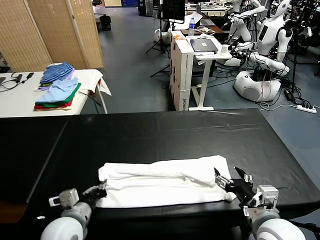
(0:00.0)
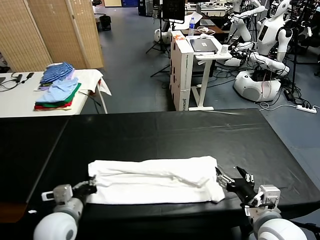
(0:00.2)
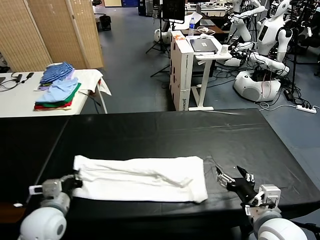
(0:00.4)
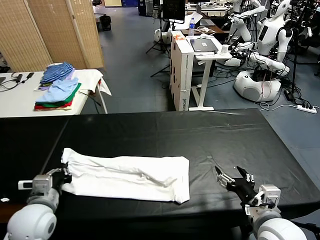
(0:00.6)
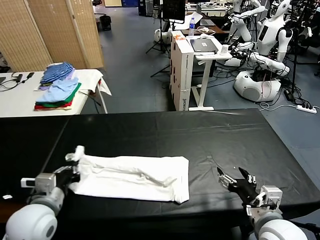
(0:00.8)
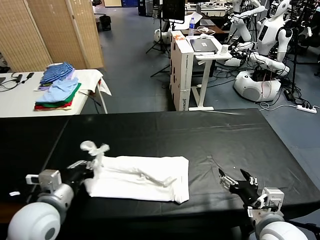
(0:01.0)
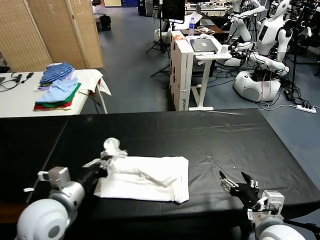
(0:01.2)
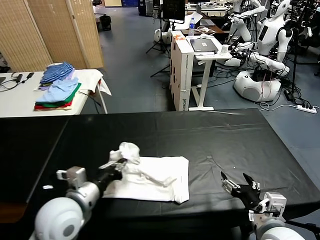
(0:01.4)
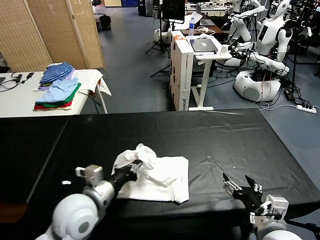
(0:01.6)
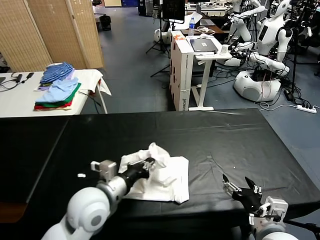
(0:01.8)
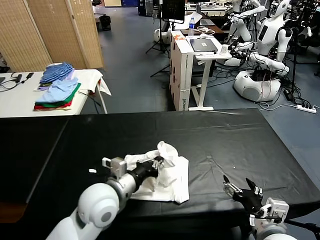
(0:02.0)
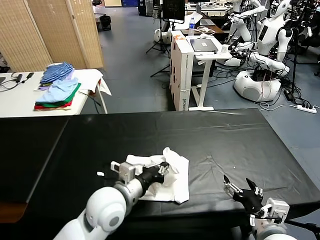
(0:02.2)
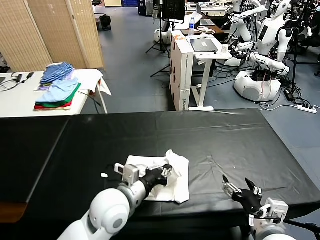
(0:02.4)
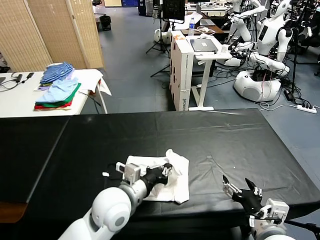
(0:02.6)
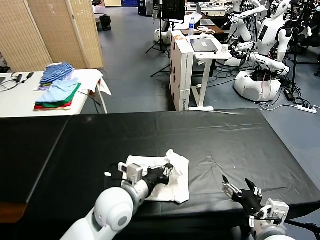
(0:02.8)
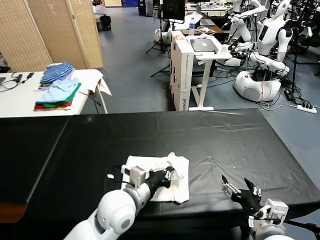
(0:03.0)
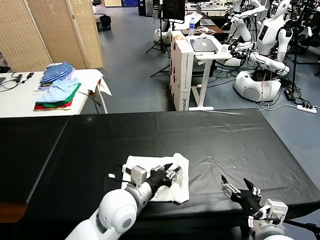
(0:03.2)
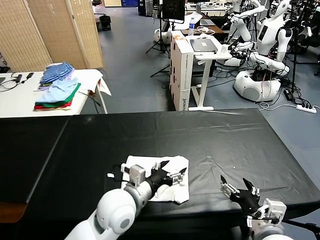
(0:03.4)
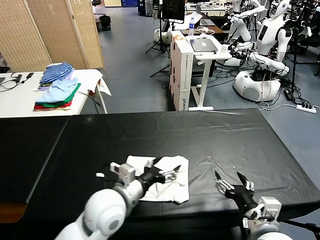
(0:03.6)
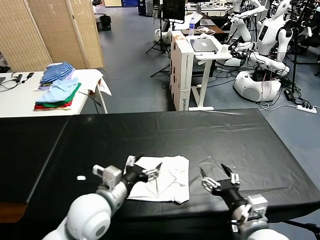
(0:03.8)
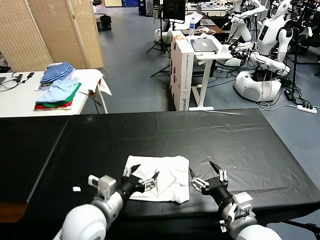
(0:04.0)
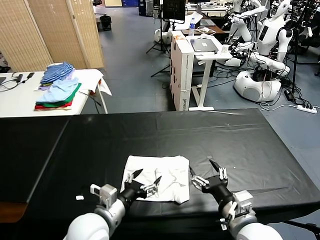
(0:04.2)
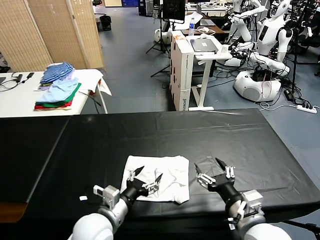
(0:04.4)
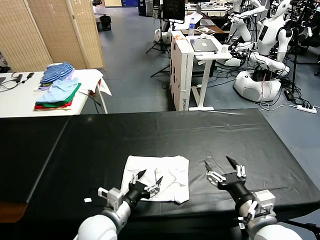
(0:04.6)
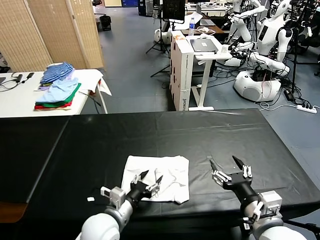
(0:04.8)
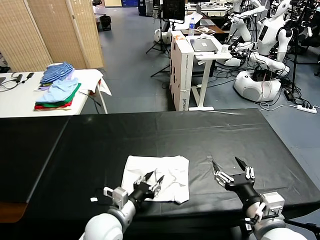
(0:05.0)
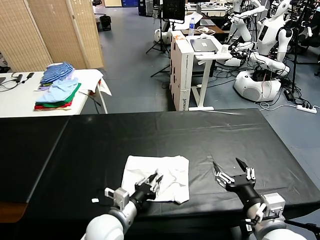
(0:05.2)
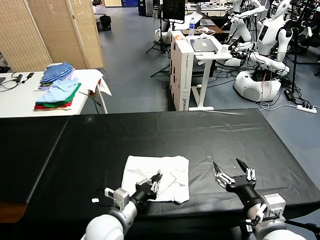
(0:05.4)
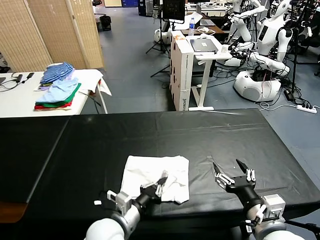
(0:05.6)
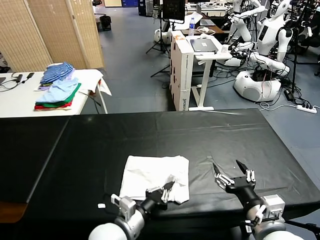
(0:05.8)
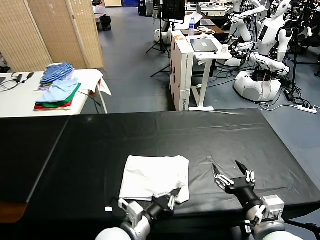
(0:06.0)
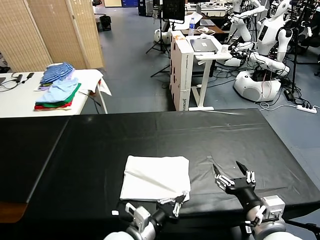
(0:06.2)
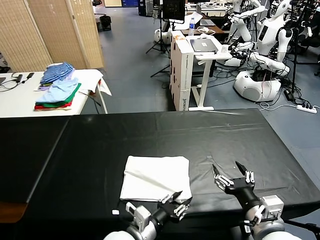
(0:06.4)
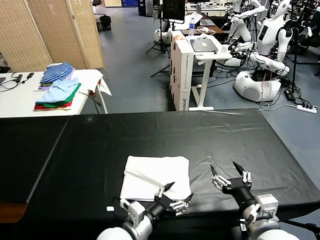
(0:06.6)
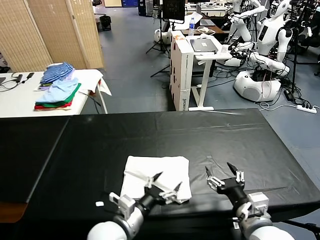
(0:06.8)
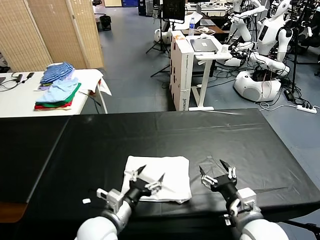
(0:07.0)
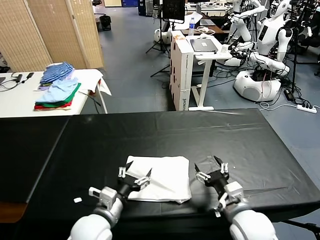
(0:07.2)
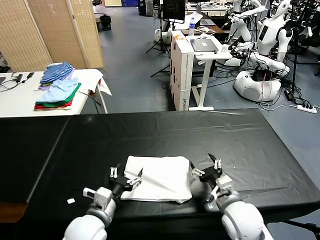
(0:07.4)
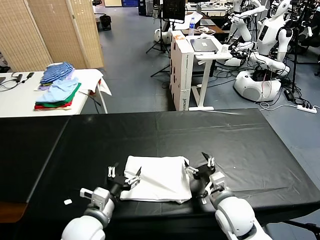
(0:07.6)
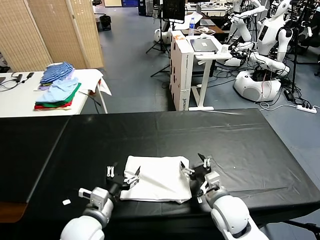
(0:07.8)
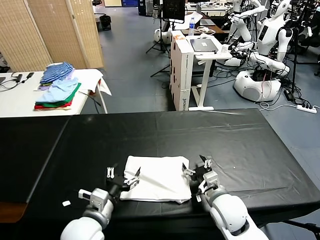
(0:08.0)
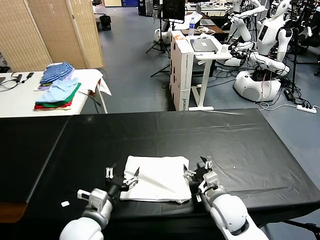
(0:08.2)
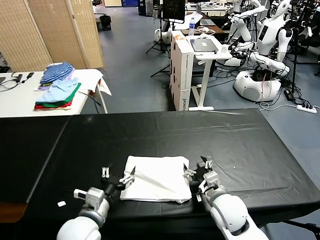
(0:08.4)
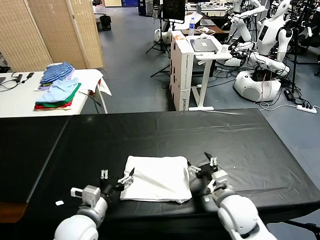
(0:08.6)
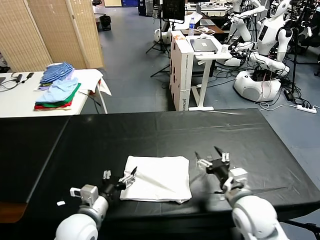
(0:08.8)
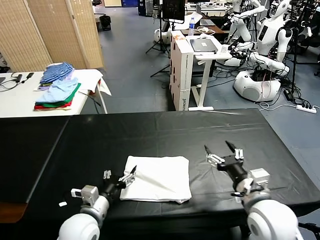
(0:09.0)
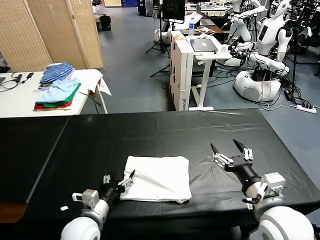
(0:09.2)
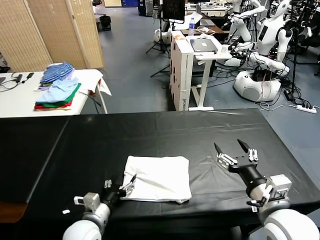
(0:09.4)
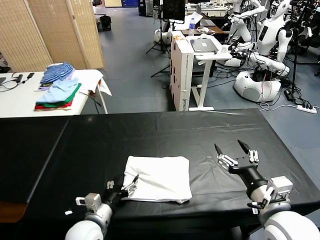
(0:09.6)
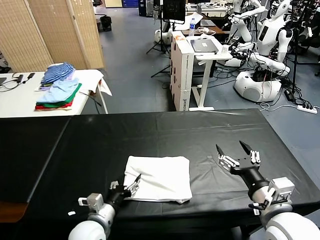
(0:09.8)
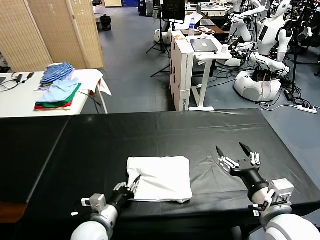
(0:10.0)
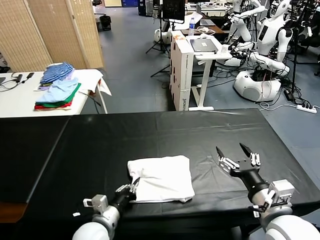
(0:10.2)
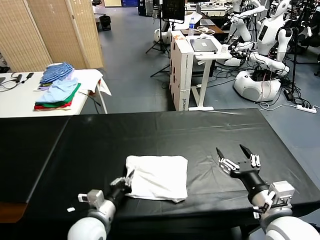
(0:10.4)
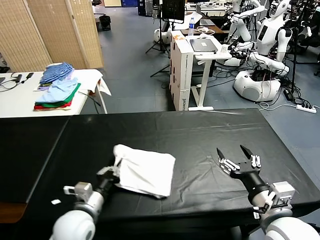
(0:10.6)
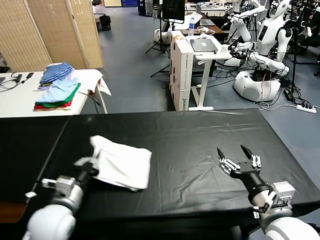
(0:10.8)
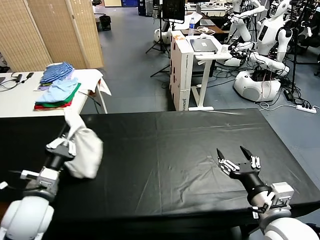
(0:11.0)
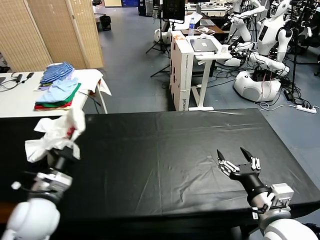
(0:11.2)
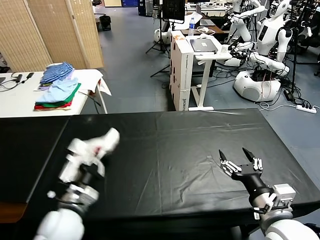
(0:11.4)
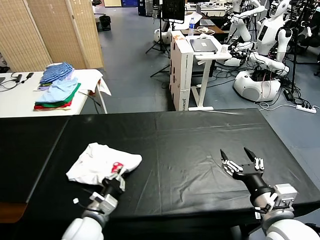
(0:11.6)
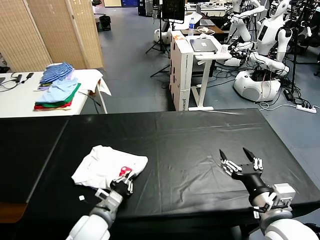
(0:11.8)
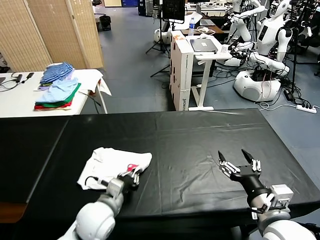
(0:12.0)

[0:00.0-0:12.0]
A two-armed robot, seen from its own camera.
Task of the whole recording: fold and organize the clothes.
Step, 0:00.4 to 0:03.2: use the left gripper to drag the left edge of the fabric to the left and folds it over the right edge.
0:00.0 to 0:01.6: The left gripper travels upward and to the right by roughly 10 cm.
0:01.6 to 0:03.0: The left gripper shifts roughly 10 cm to the right.
0:03.0 to 0:04.4: The left gripper moves to the left and backward, about 10 cm, and opens up.
0:04.4 to 0:06.0: The left gripper is displaced to the right by about 5 cm, and closes its fingers.
0:06.0 to 0:07.6: The left gripper shifts roughly 10 cm to the left, and opens. Meanwhile the right gripper goes roughly 15 cm forward, downward and to the left.
0:07.6 to 0:09.0: The right gripper shifts some 10 cm upward and to the right.
0:09.0 to 0:10.4: The left gripper closes.
0:10.4 to 0:12.0: The left gripper goes to the left and returns, about 10 cm each way.

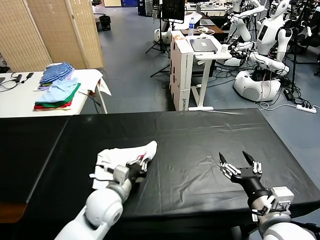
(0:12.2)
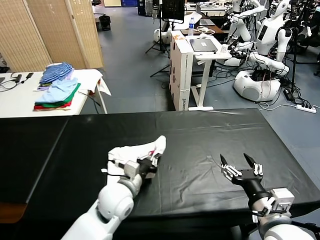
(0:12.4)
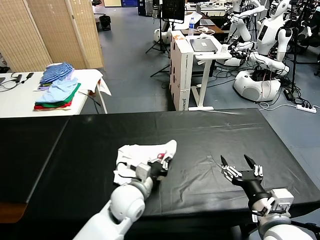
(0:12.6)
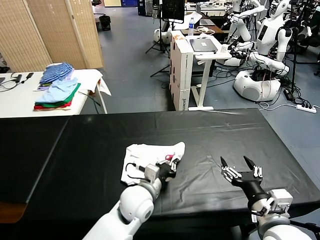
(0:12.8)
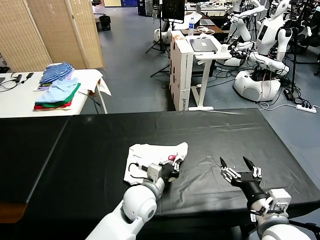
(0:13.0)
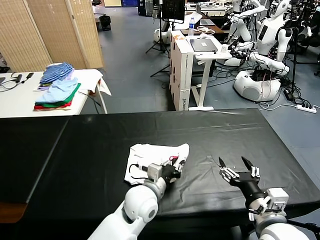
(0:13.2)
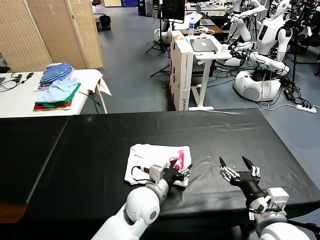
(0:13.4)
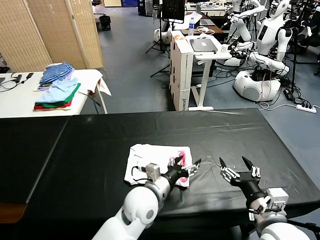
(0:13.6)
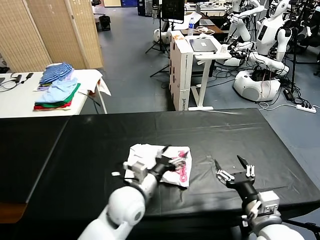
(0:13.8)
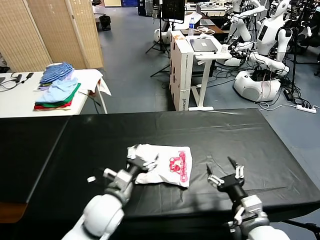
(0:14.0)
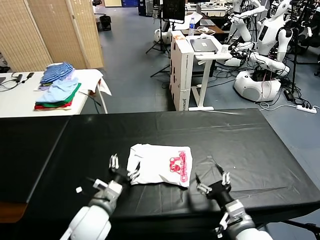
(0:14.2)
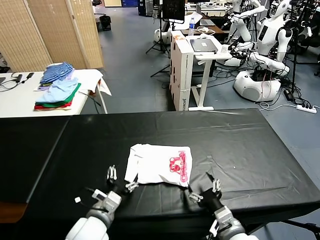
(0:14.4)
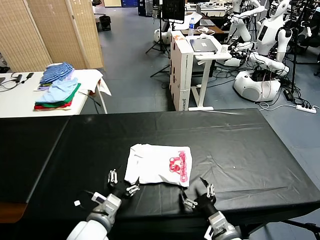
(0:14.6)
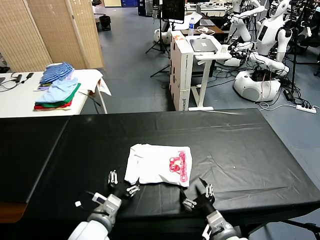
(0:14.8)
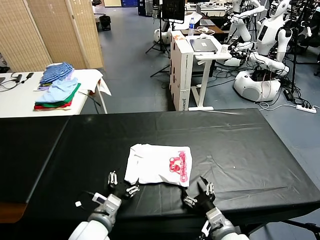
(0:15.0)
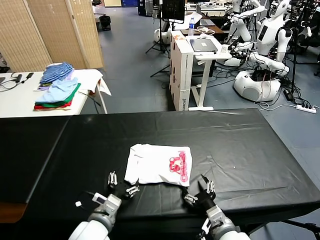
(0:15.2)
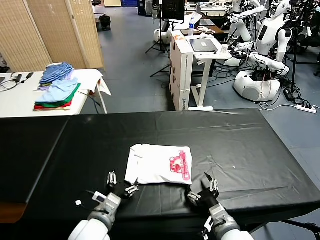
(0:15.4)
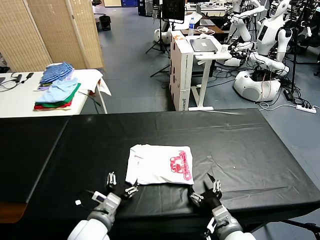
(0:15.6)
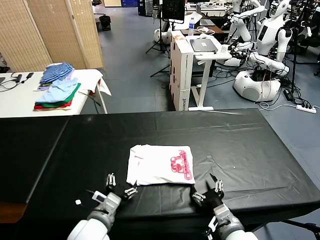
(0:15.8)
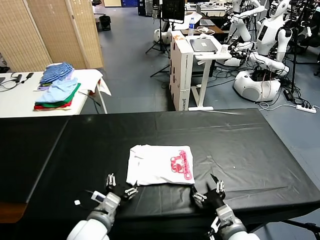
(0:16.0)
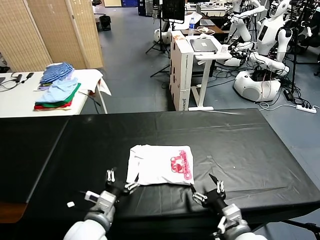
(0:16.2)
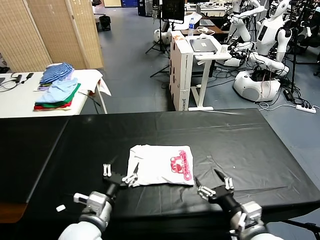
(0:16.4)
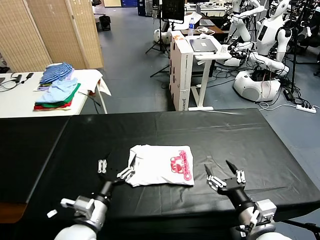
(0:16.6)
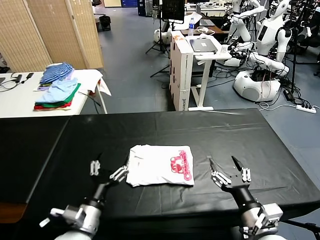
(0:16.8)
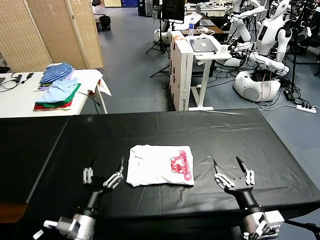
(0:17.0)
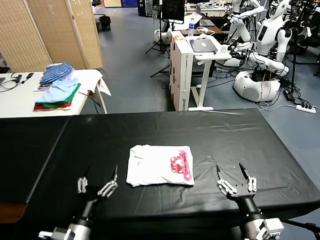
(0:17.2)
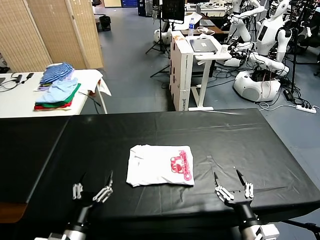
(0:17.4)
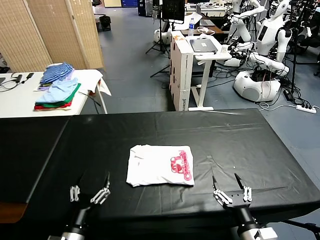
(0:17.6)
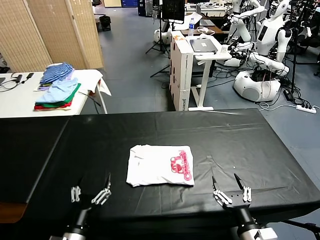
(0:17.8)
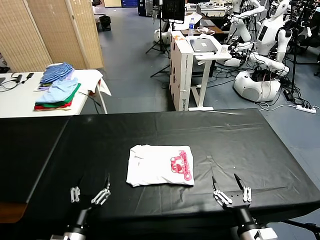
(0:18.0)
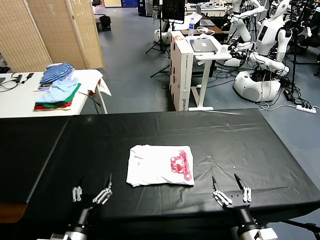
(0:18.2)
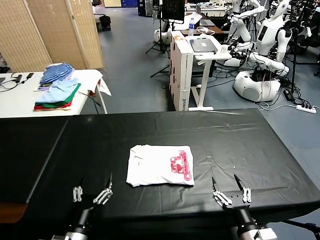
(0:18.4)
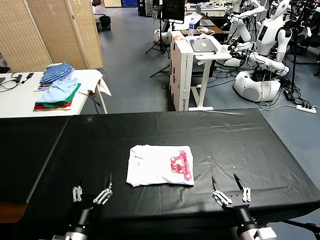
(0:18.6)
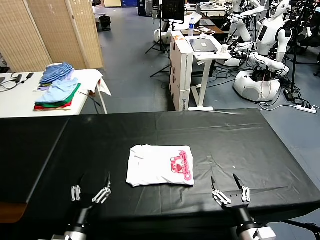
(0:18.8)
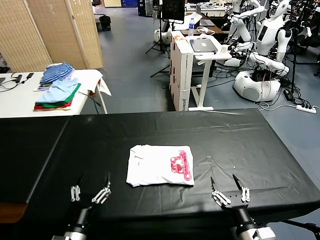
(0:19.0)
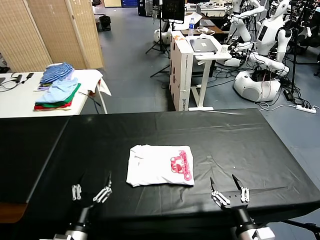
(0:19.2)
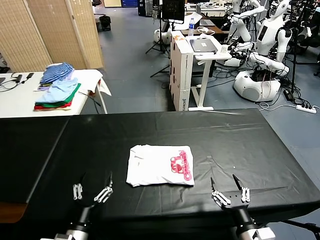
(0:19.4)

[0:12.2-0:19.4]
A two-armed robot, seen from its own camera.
Task of the whole recording: fold and organize the clothes.
Step, 0:13.6 to 0:16.2: Drag the clothes to the center of the table.
0:12.2 to 0:13.6: The left gripper travels to the right by some 10 cm, and opens.
0:13.6 to 0:15.0: The right gripper shifts some 15 cm downward and to the left, while the left gripper travels to the left and backward by approximately 15 cm.
0:15.0 to 0:16.6: The right gripper shifts approximately 10 cm upward and to the right.
0:16.6 to 0:18.0: The right gripper goes about 10 cm downward. Meanwhile the left gripper goes approximately 10 cm backward, downward and to the left.
0:18.0 to 0:19.4: Both grippers stay about where they are.

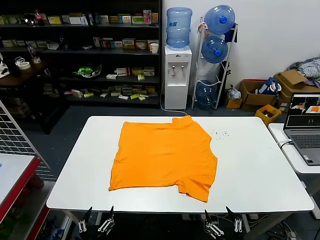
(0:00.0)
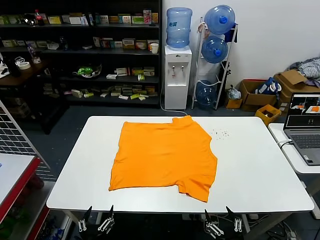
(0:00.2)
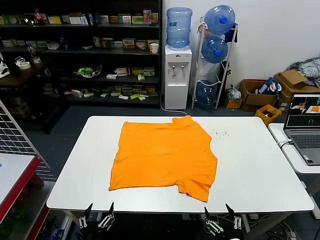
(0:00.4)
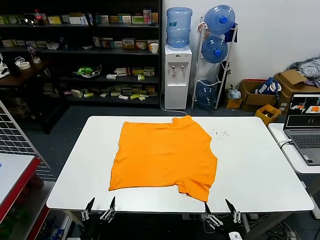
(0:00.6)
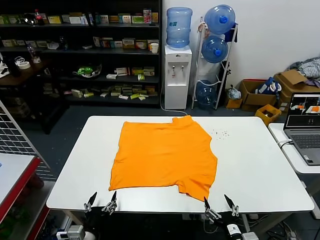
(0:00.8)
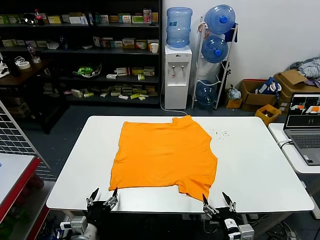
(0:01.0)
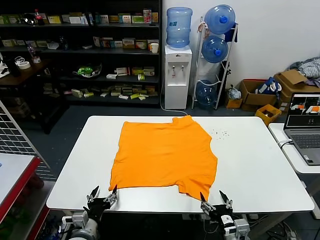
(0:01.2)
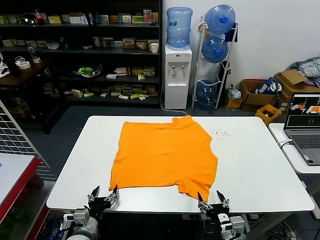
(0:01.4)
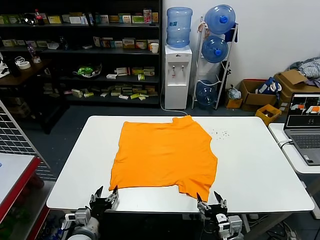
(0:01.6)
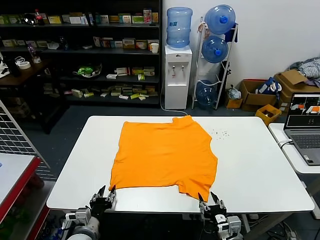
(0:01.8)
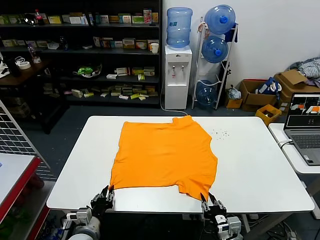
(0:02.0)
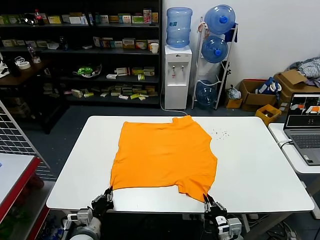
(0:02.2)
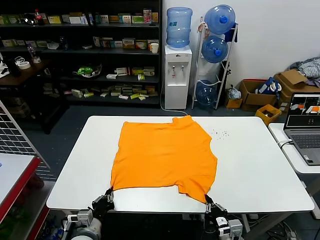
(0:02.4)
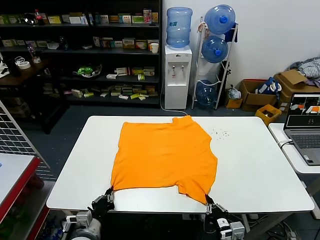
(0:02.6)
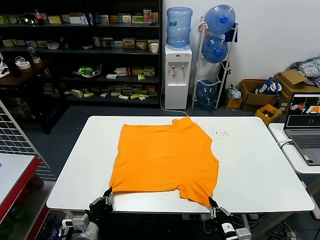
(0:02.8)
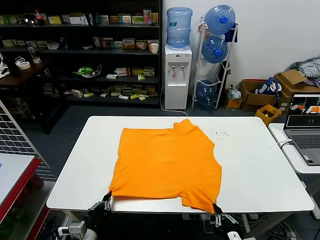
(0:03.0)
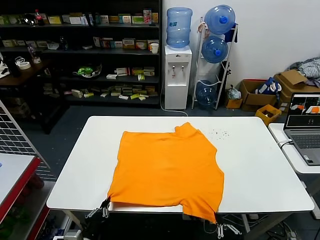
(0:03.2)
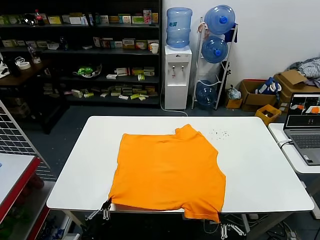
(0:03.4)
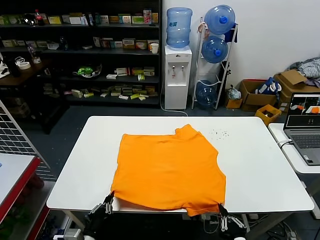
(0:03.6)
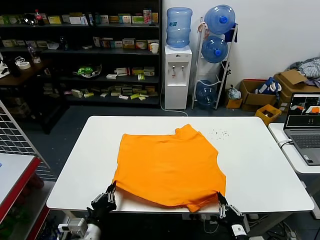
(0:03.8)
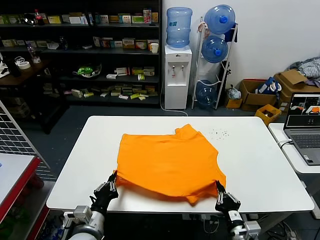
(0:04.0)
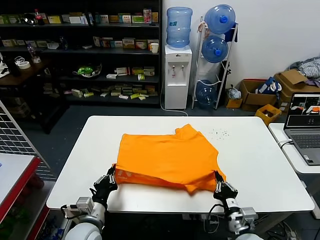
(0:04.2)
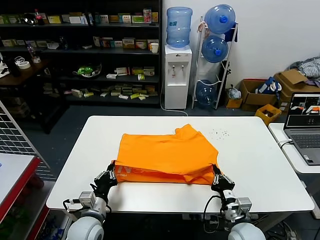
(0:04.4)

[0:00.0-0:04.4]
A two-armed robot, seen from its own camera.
Task of the whole recording: fold and organize the clothes.
Step, 0:00.0 to 0:02.2: use both grippers simultaneously to clamp the lower edge of the clothing fabric.
0:01.4 to 0:03.0: The left gripper ends up about 5 cm from where it was, and closes its fingers, while the right gripper moves backward, roughly 10 cm, and closes its fingers.
0:03.0 to 0:04.4: The left gripper heads forward, covering about 10 cm; the right gripper moves forward, roughly 15 cm.
